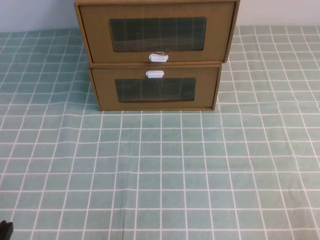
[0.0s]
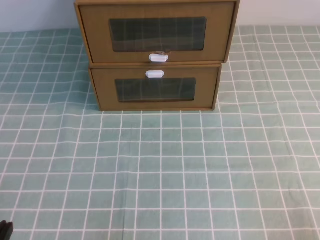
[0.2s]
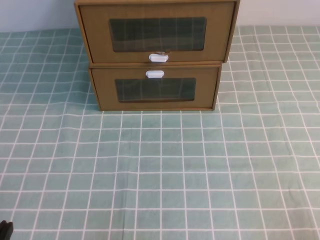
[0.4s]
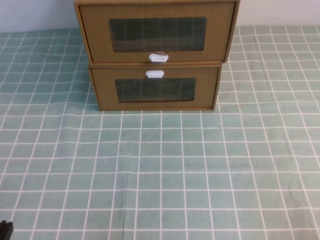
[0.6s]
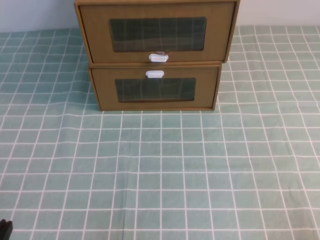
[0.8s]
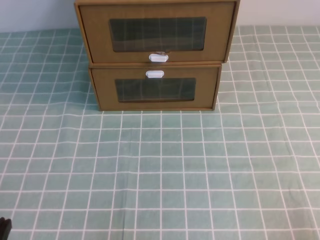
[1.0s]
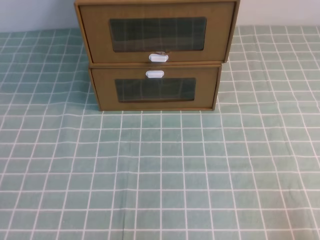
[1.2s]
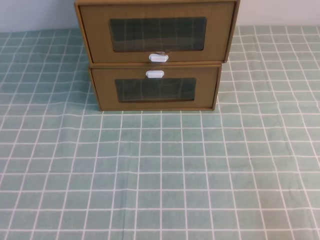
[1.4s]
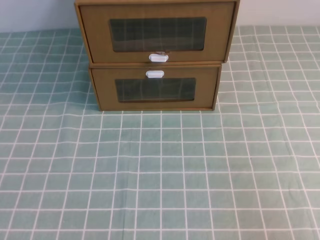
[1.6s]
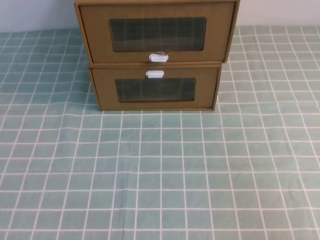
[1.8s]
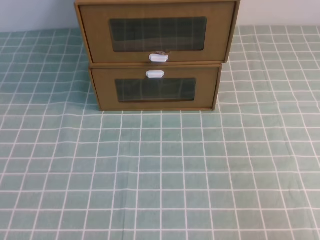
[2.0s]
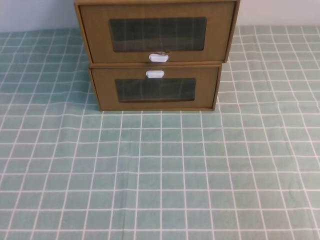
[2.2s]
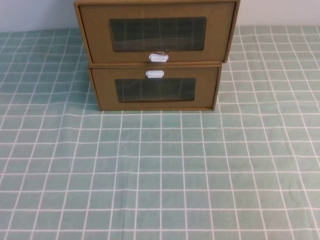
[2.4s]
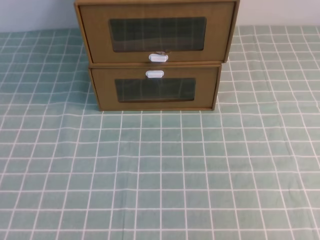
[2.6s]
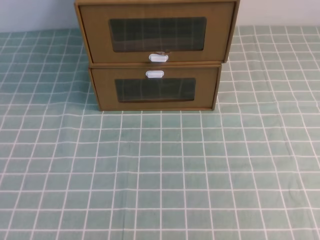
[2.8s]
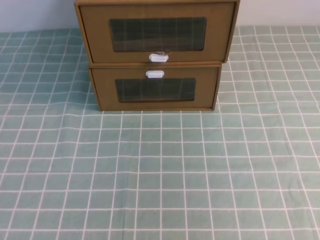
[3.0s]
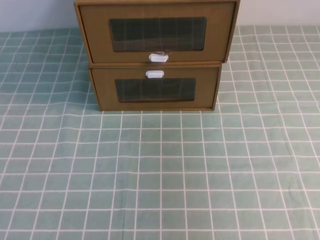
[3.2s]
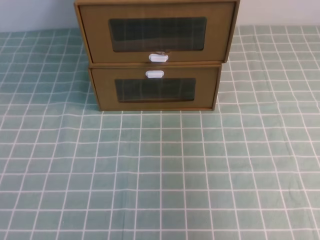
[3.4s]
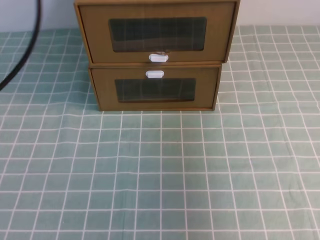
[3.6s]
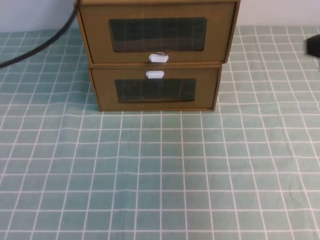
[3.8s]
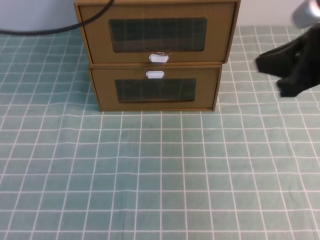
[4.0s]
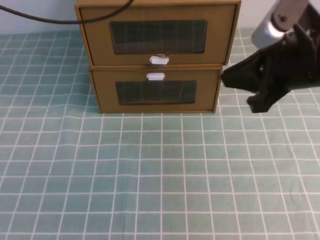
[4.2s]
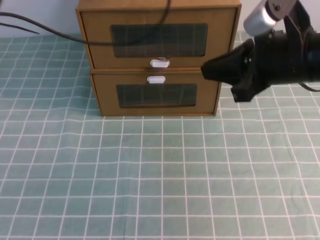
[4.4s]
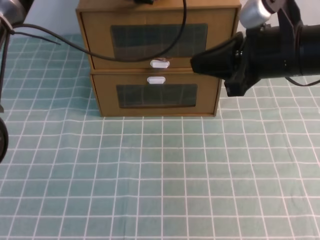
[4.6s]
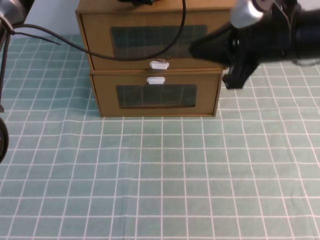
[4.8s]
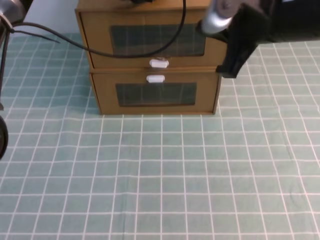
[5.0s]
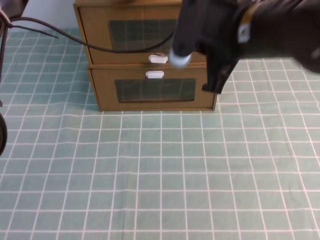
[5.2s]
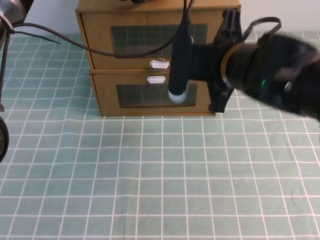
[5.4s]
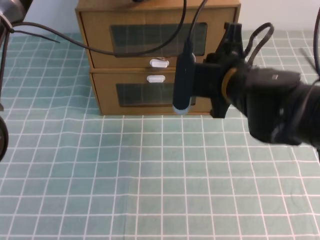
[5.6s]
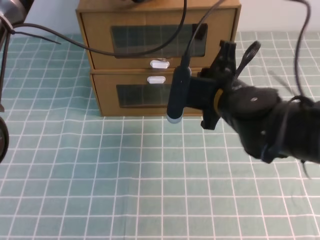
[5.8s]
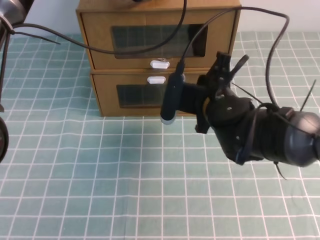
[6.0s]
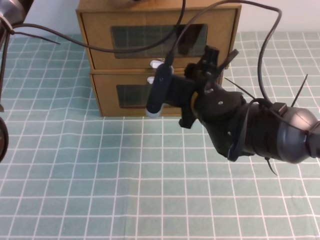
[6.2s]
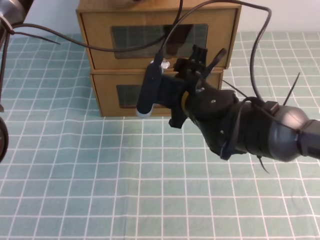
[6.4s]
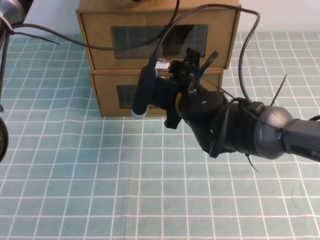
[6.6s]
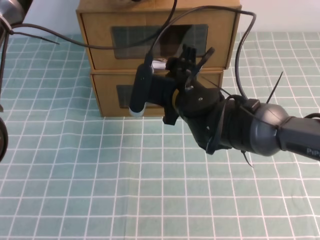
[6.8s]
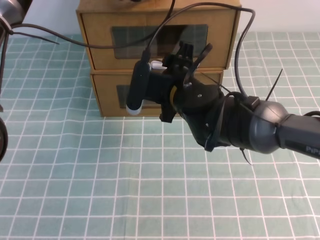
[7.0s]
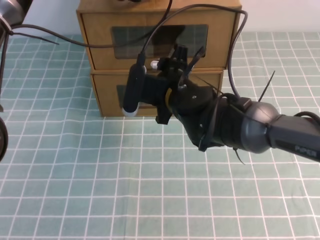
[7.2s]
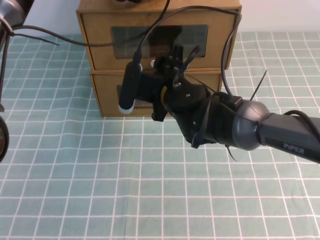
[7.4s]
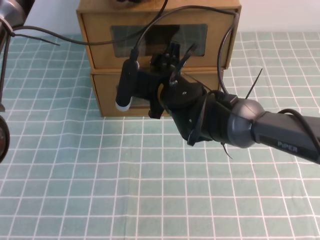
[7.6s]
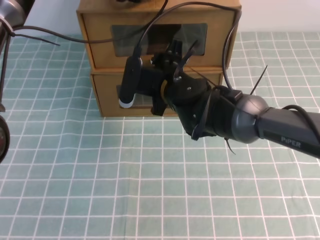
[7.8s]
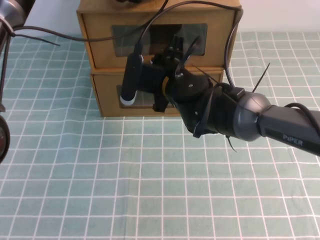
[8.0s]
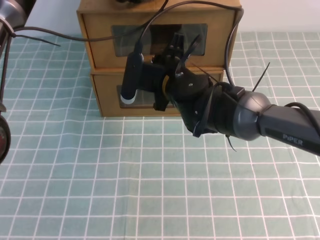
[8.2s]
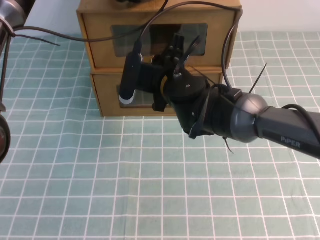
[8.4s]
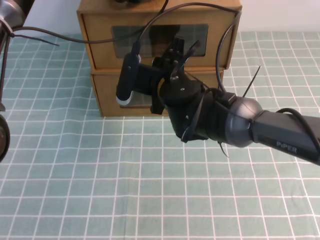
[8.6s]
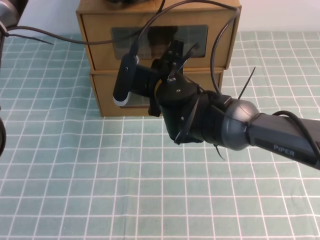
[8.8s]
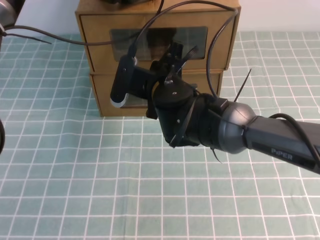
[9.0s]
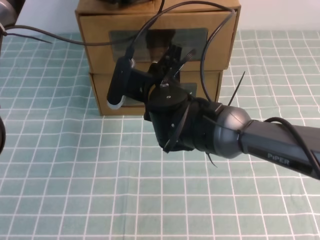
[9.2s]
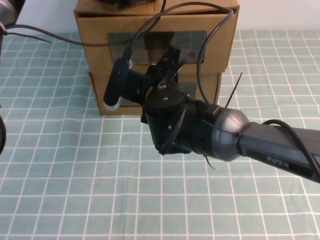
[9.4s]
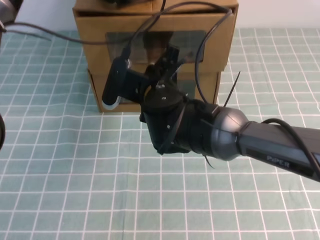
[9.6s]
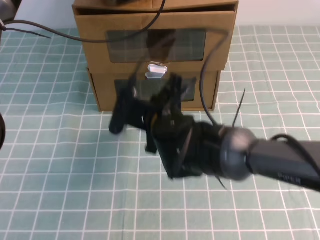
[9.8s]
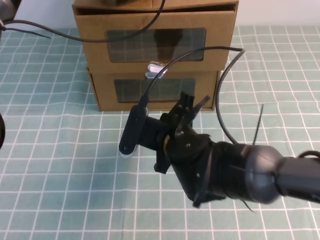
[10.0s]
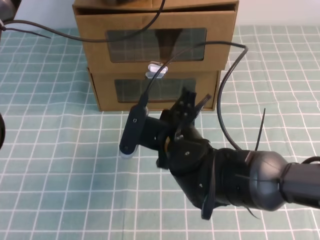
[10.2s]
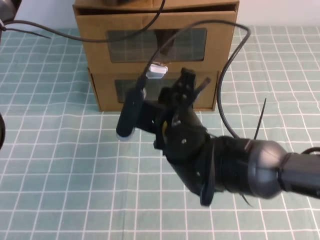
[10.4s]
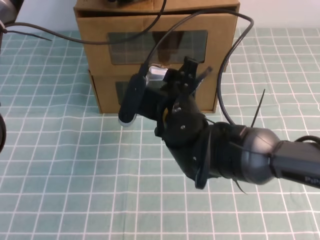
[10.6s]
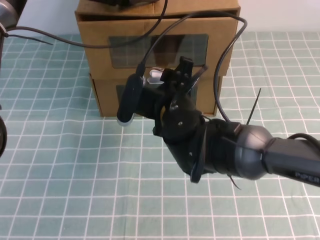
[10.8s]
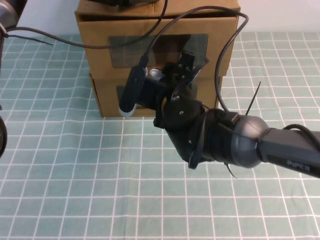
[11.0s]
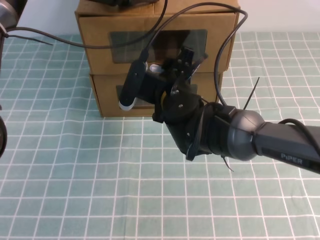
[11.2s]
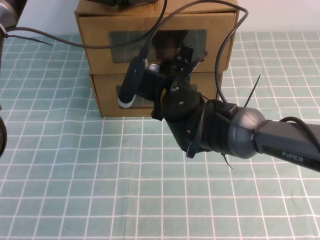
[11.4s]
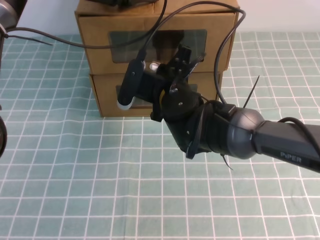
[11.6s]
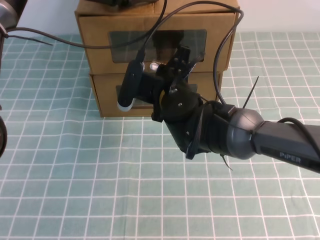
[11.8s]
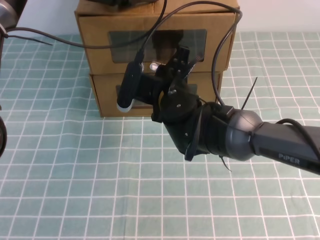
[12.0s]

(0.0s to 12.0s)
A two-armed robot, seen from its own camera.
Task of the whole recording: open the shoebox on the cyan tablecloth.
3.0s - 4.4s: The left gripper goes about 40 cm forward. Meanwhile the right gripper travels forward, to the left and downward by about 30 cm.
4.4s - 6.0s: The left gripper moves roughly 5 cm. The right gripper heads downward and to the left, covering some 15 cm.
6.0s - 7.6s: The right gripper shifts roughly 5 cm to the left, and opens.
7.6s - 9.0s: The right gripper closes its fingers.
9.0s - 10.4s: The right gripper shifts roughly 5 cm backward.
10.4s - 12.0s: The right gripper heads forward, covering approximately 5 cm, and opens, then closes again.

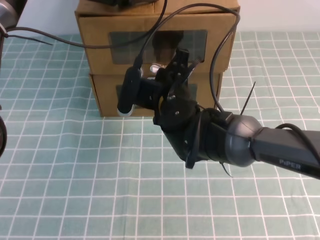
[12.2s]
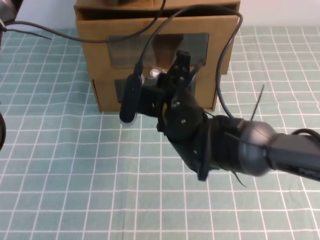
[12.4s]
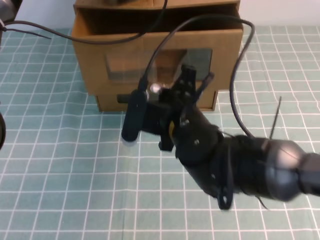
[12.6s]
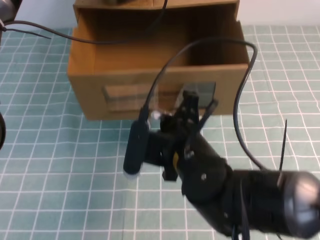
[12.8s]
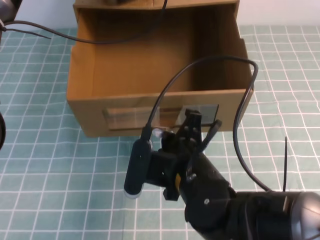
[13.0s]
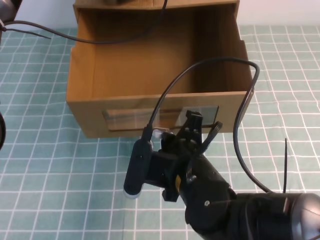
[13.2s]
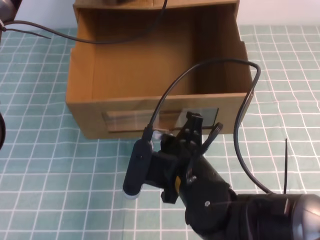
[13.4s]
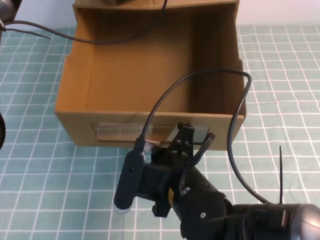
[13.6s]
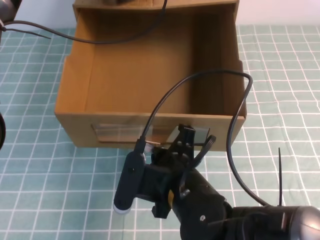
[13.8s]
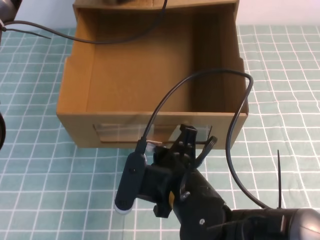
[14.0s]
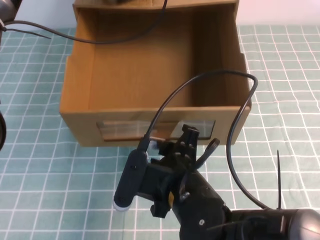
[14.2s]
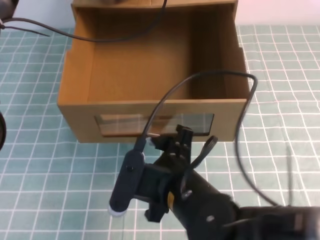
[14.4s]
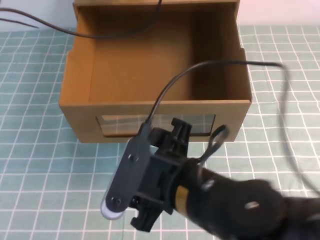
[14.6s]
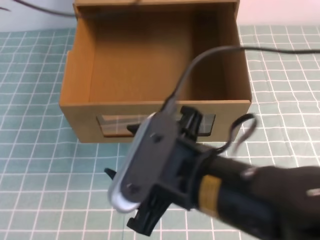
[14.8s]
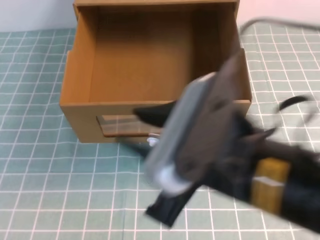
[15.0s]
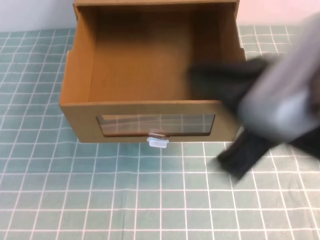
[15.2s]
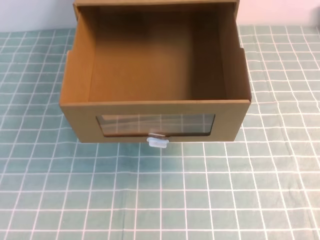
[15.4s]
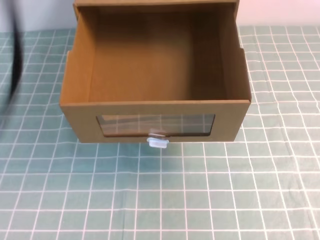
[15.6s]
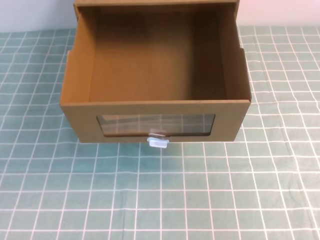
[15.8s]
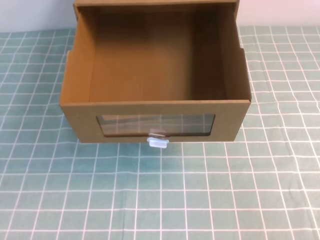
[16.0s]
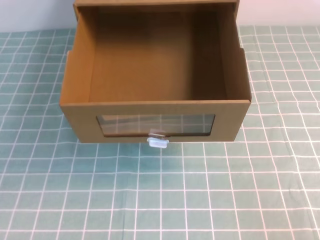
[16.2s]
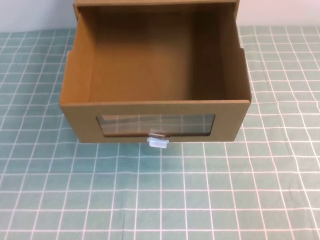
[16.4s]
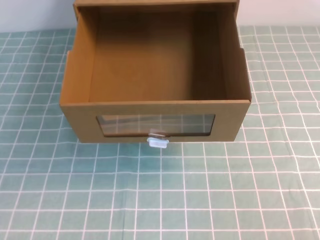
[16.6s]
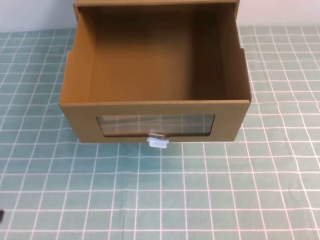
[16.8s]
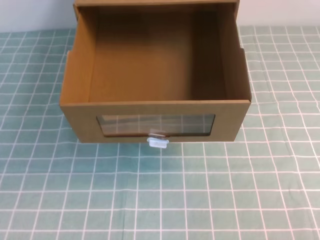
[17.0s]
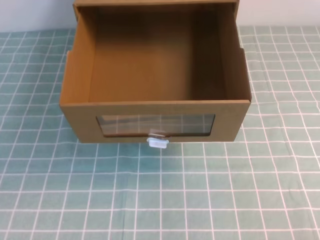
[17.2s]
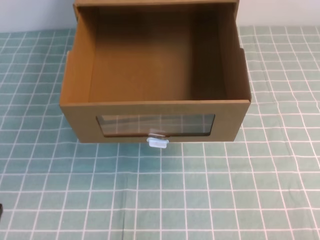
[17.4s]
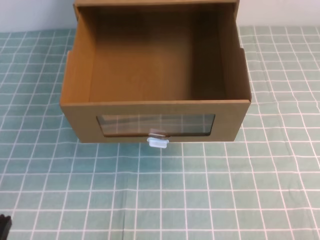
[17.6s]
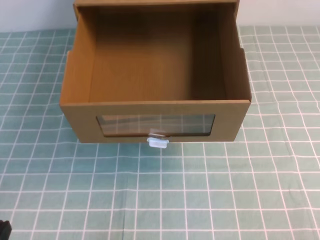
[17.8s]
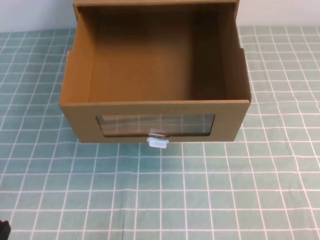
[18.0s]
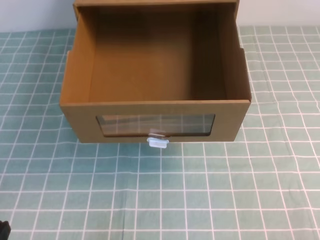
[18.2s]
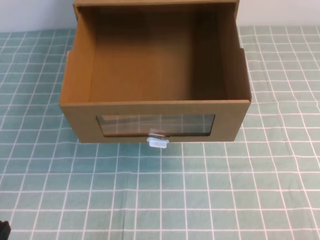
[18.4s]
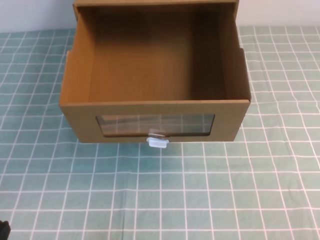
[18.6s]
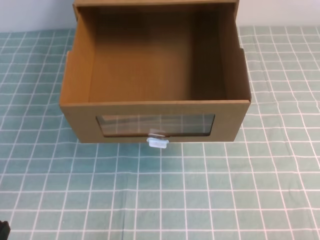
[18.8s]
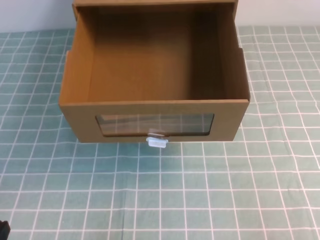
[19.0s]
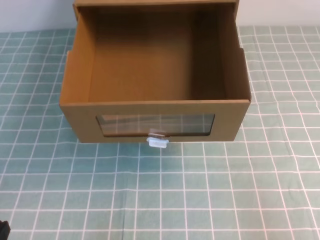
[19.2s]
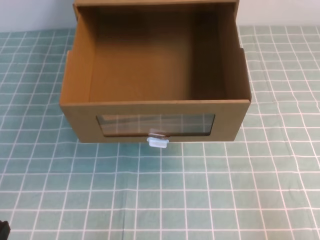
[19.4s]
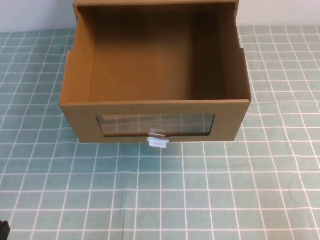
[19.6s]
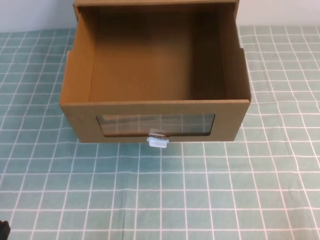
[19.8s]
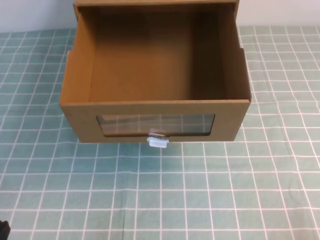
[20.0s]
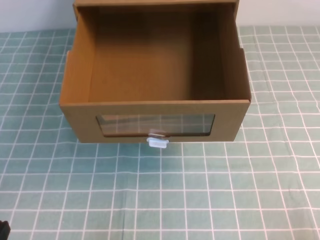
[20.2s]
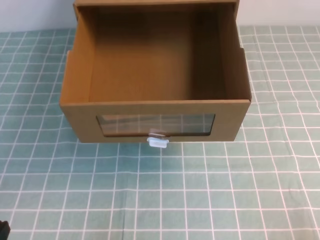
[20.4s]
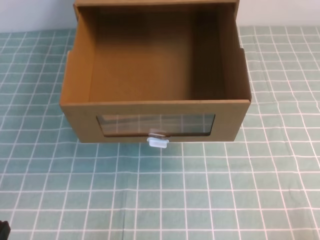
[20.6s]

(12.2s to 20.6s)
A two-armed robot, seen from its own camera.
Task of the whole recording: open the shoebox on the cyan tablecloth.
Step, 12.2s - 20.6s: Open the shoe box.
12.2s - 13.6s: The right gripper moves backward, roughly 15 cm.
13.6s - 15.0s: The two grippers go roughly 20 cm upward and backward. The right gripper opens up.
15.0s - 16.4s: The right gripper is displaced to the right by approximately 30 cm, and closes up; the left gripper shifts some 40 cm backward and downward.
16.4s - 17.8s: The left gripper goes about 15 cm downward.

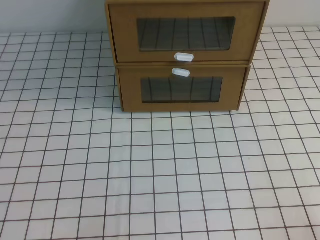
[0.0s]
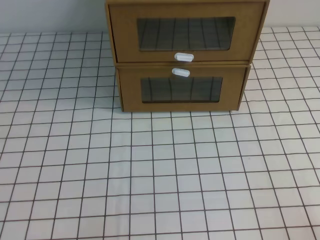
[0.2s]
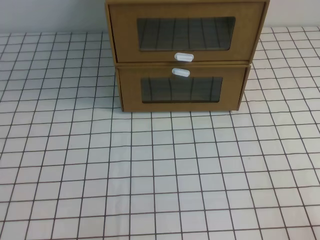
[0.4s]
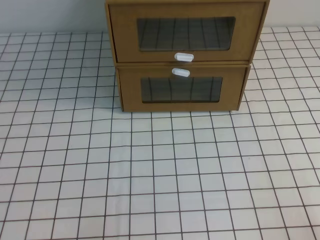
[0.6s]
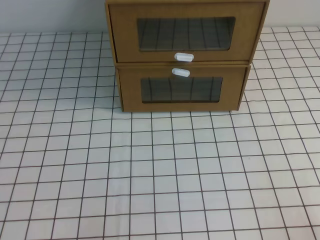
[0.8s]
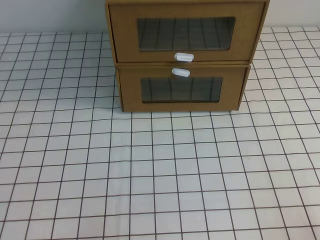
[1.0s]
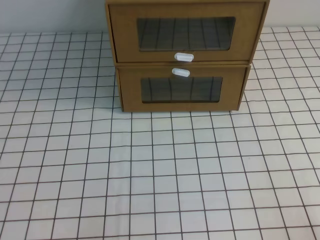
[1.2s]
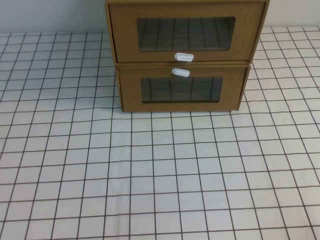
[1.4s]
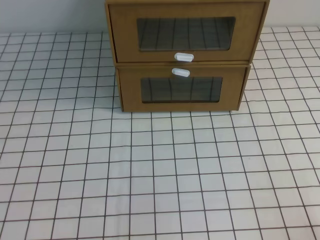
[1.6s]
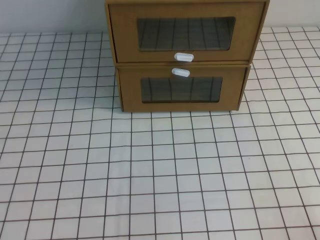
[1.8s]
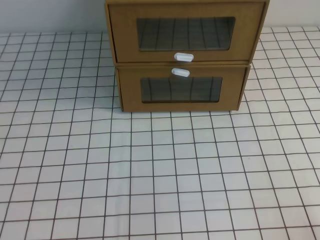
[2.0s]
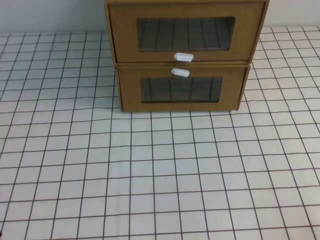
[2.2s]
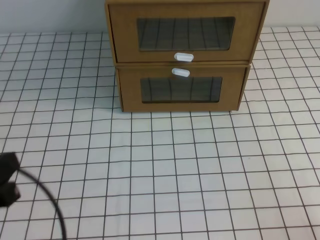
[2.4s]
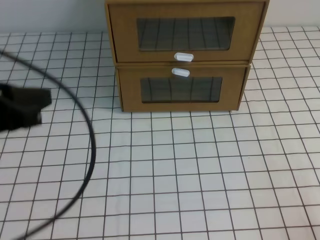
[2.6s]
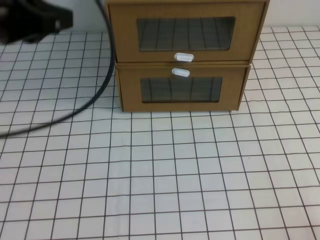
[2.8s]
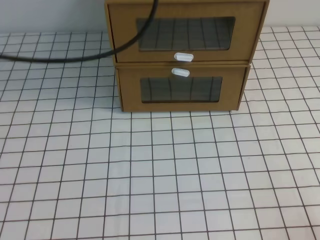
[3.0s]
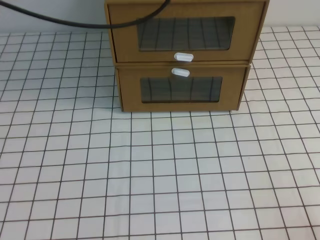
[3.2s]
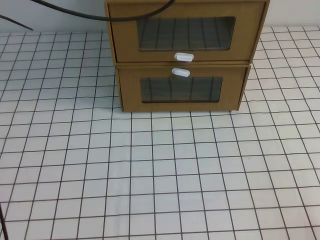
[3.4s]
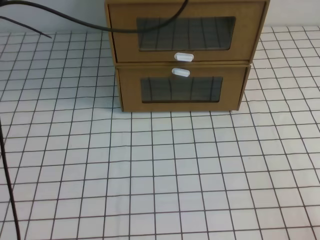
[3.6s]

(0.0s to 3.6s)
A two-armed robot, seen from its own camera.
Task of the whole recording: open the shoebox on the white tablecloth.
1.8s - 3.6s: The left gripper heads forward, upward and to the right, covering approximately 50 cm.
